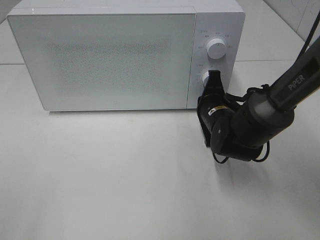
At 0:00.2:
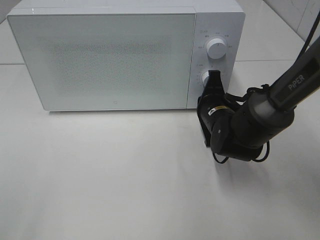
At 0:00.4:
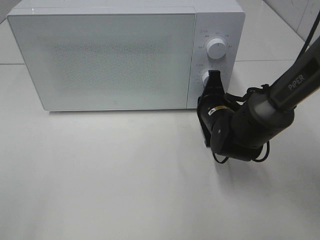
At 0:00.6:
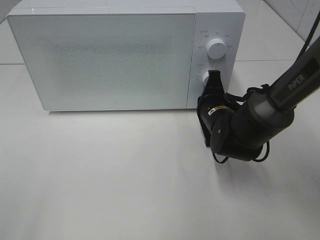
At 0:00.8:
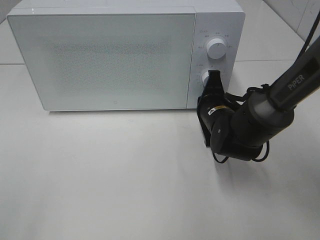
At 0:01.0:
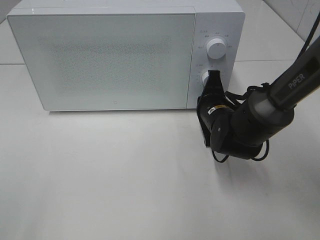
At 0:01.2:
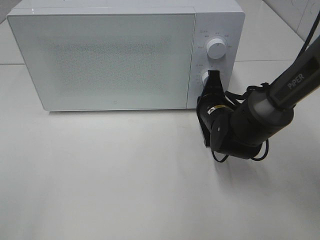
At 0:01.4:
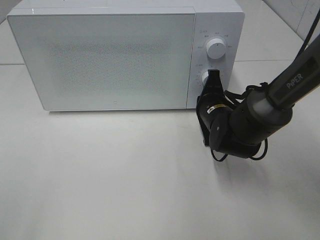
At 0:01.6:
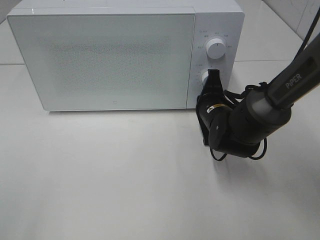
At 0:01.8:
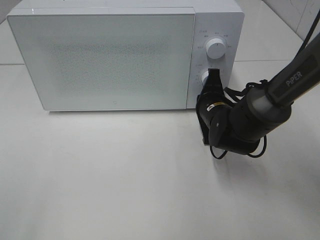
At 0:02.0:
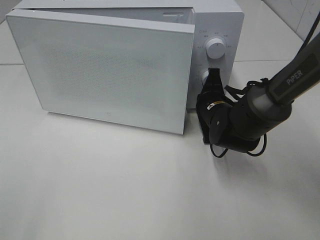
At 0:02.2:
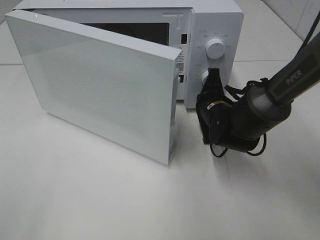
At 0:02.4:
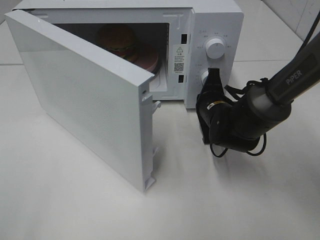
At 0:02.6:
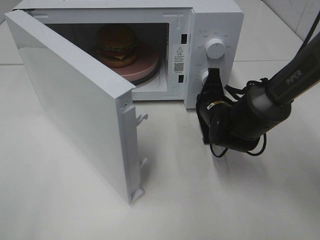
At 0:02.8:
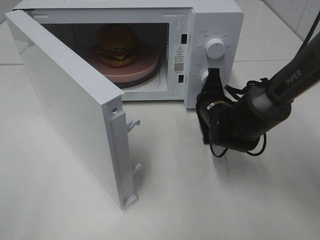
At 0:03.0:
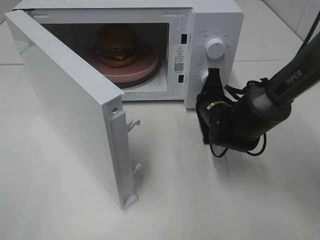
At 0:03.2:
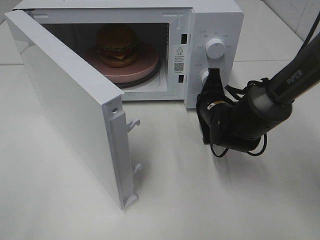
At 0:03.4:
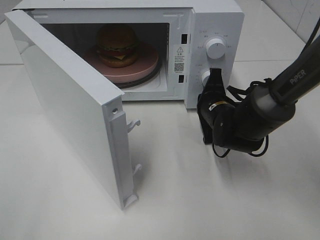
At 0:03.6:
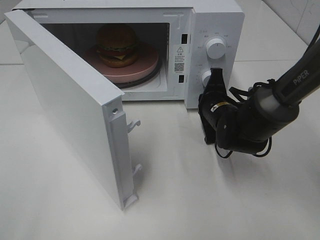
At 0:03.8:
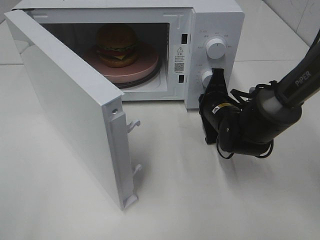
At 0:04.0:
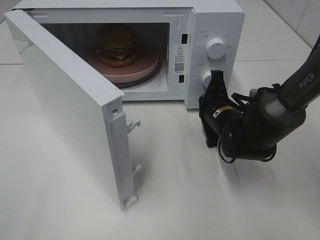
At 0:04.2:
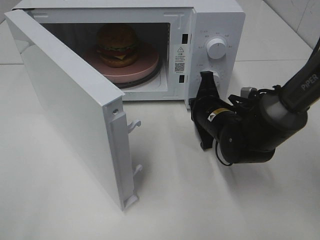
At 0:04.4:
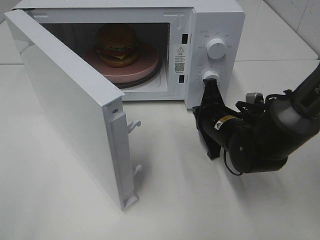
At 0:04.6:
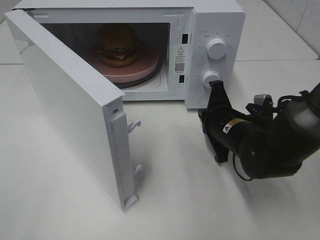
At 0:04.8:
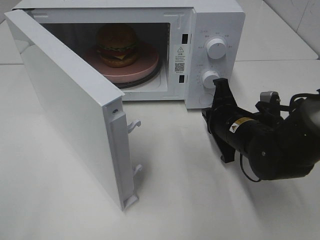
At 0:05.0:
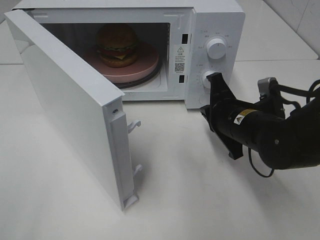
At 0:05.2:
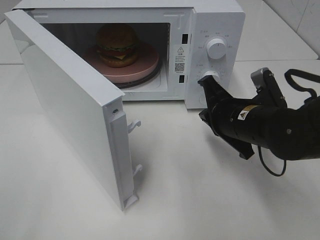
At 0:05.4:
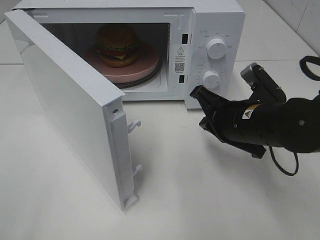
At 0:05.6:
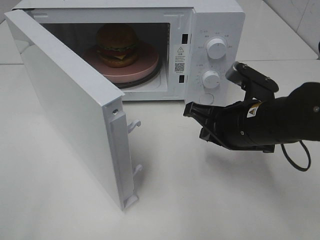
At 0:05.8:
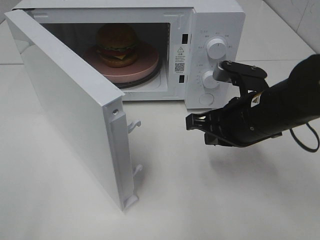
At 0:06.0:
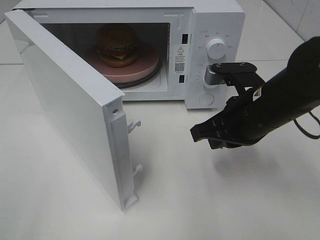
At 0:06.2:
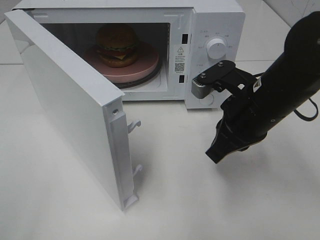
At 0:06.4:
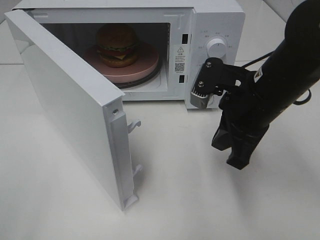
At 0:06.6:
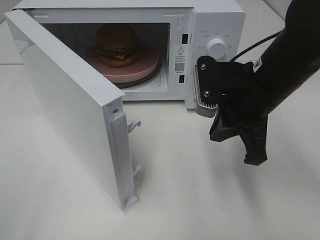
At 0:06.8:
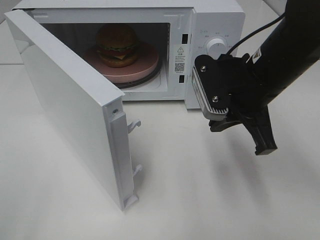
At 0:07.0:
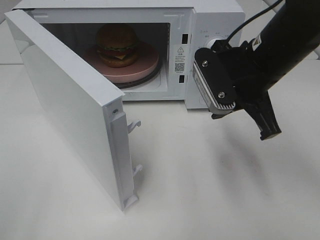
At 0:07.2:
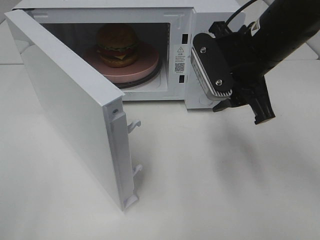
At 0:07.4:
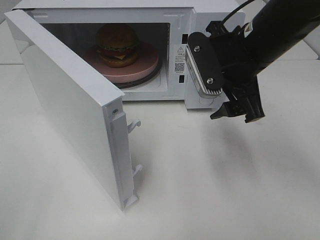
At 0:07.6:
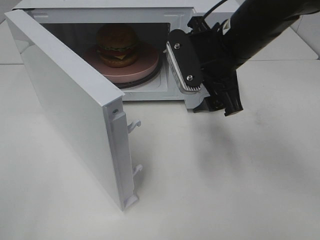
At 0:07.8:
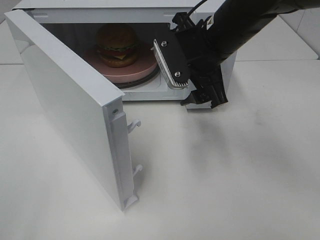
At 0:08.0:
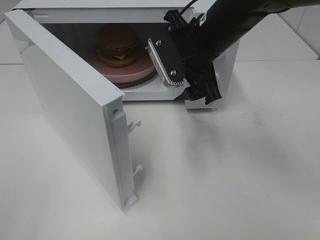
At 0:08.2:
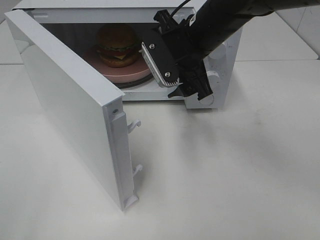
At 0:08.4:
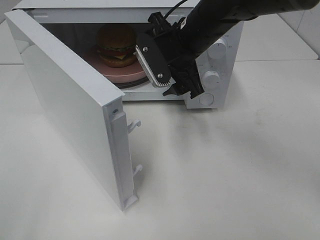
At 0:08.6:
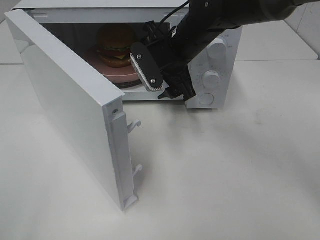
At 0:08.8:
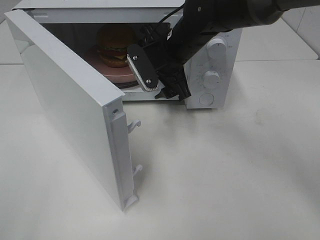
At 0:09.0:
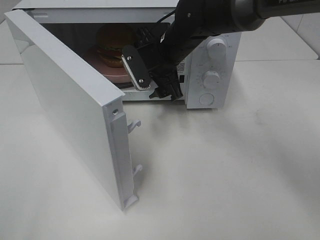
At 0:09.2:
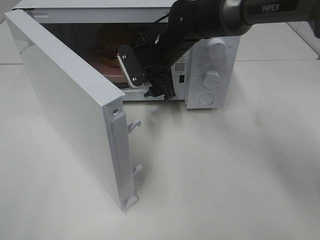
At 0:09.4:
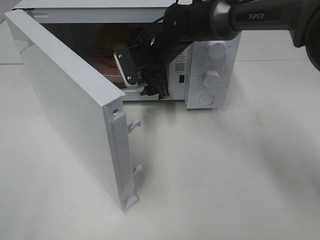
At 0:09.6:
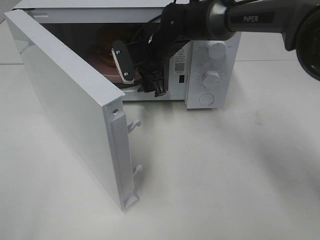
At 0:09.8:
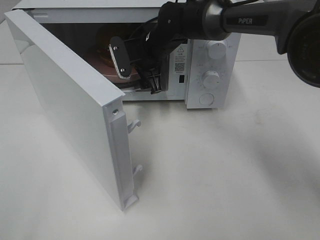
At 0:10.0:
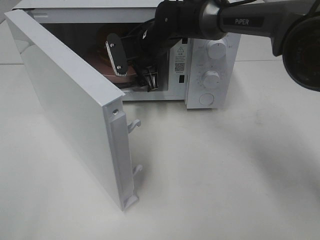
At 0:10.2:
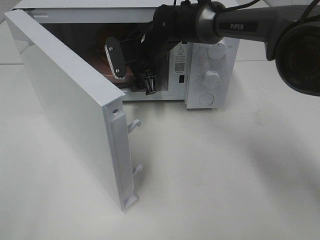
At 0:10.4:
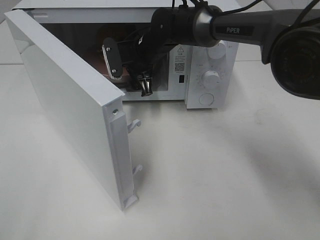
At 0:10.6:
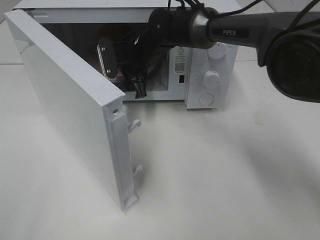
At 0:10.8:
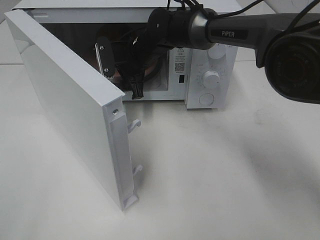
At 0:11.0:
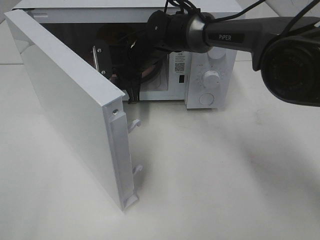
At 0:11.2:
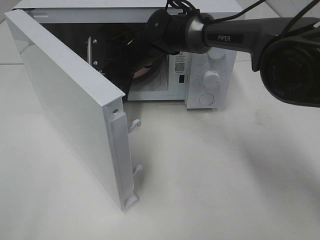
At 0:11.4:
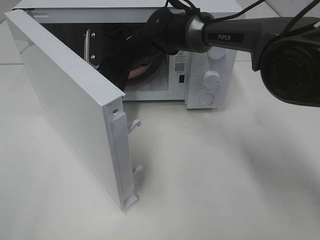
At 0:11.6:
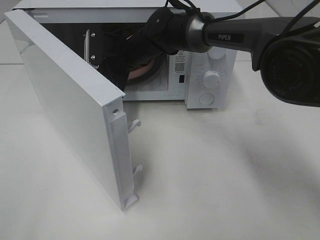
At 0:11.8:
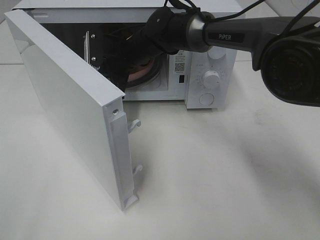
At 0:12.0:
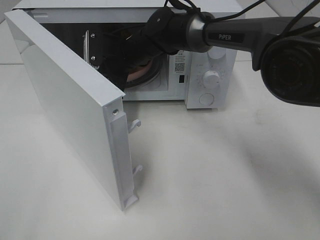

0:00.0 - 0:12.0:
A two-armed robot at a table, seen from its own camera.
Task of the whole recording: Heat the burger.
Step, 0:00.0 - 0:04.0: Right hand: press the switch.
0:00.0 - 0:01.6: Both grippers stay put.
0:03.0 - 0:04.4: There are only small adjustments of the grippers.
0:04.4 - 0:06.0: The right gripper moves upward and backward, roughly 10 cm.
0:06.0 - 0:07.6: The right gripper is displaced upward and forward by some 10 cm, and opens.
0:07.6 - 0:09.0: The right gripper is displaced forward, to the left and downward by about 15 cm.
0:09.0 - 0:10.4: The right gripper ends up roughly 5 cm from where it was.
0:10.4 - 0:12.0: The right gripper closes up.

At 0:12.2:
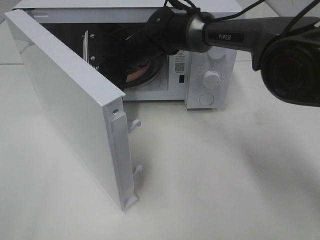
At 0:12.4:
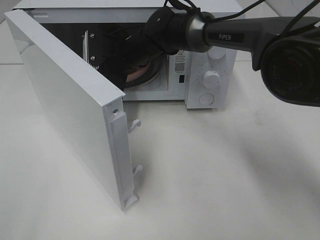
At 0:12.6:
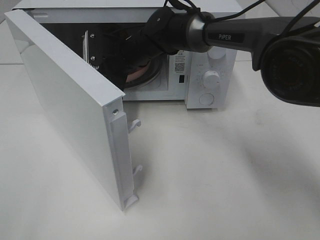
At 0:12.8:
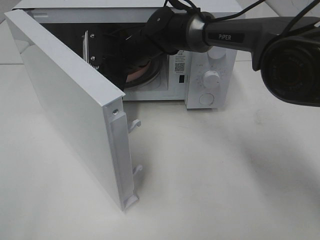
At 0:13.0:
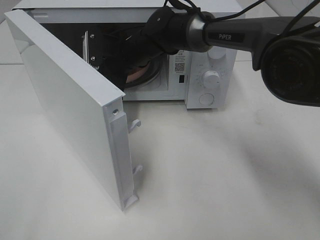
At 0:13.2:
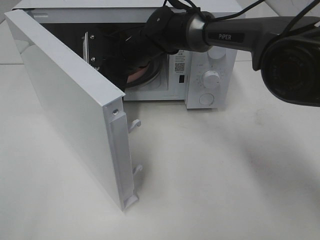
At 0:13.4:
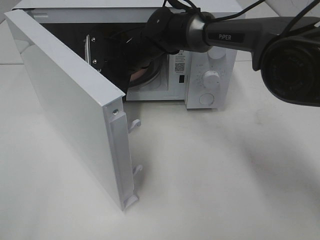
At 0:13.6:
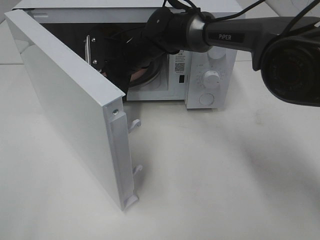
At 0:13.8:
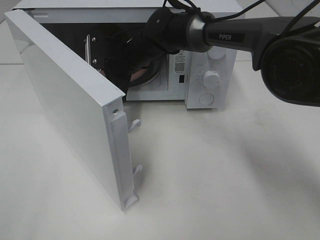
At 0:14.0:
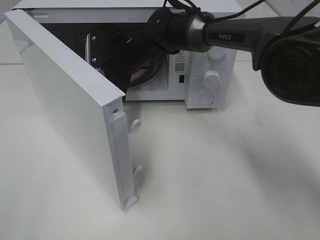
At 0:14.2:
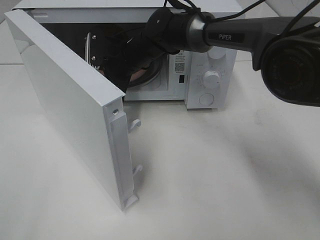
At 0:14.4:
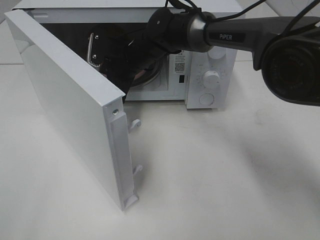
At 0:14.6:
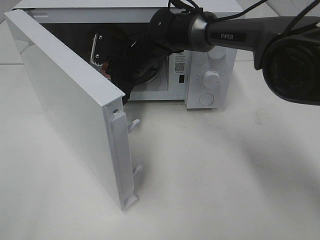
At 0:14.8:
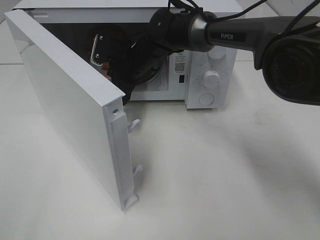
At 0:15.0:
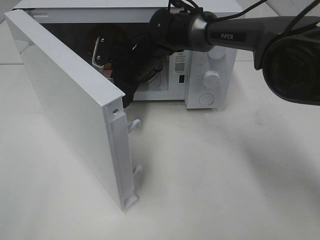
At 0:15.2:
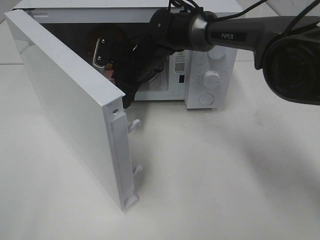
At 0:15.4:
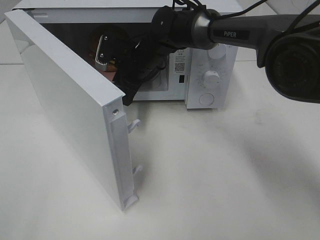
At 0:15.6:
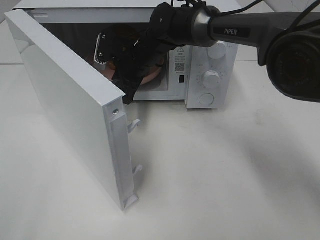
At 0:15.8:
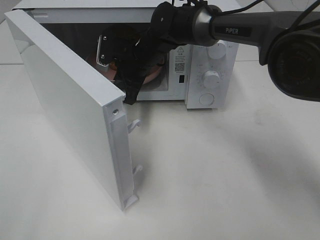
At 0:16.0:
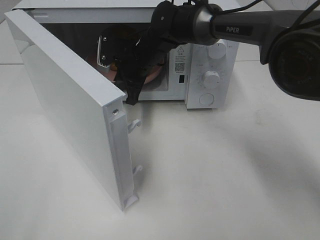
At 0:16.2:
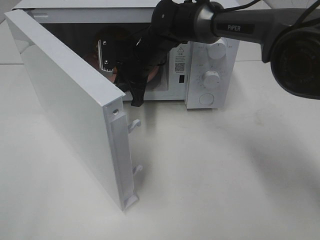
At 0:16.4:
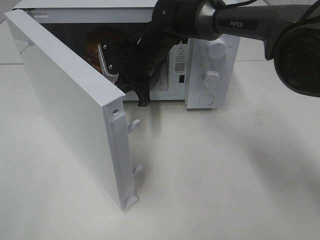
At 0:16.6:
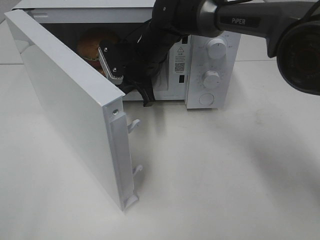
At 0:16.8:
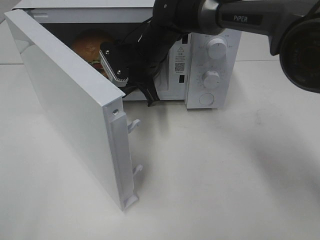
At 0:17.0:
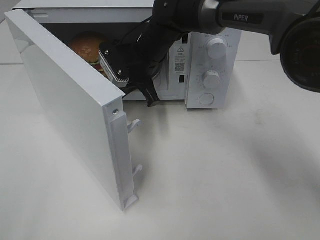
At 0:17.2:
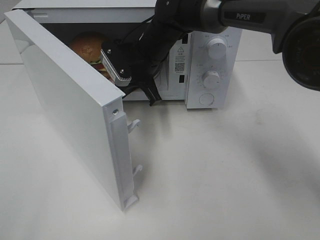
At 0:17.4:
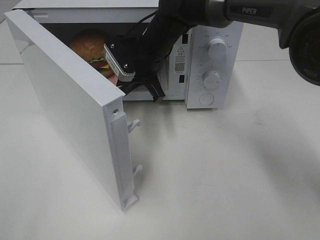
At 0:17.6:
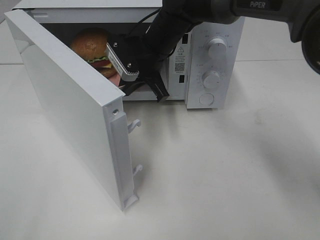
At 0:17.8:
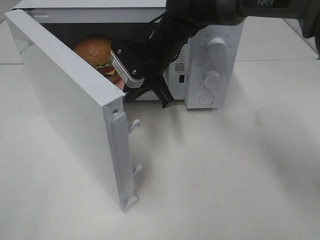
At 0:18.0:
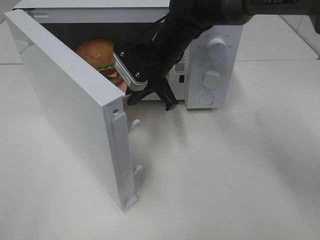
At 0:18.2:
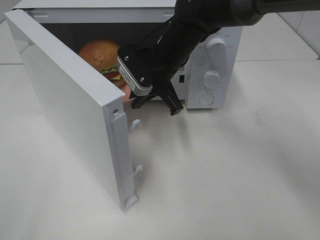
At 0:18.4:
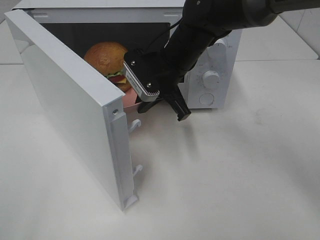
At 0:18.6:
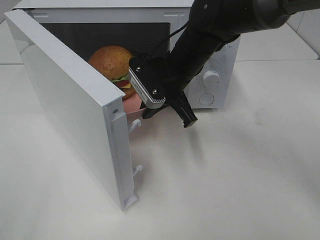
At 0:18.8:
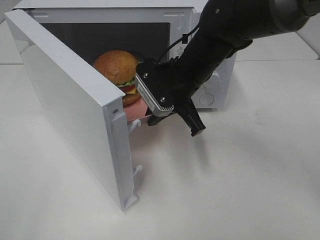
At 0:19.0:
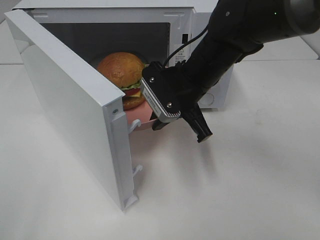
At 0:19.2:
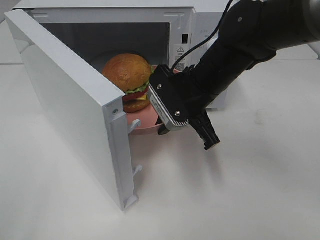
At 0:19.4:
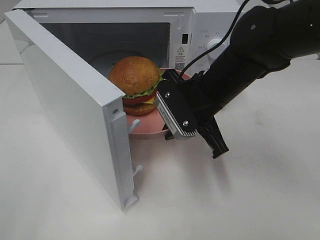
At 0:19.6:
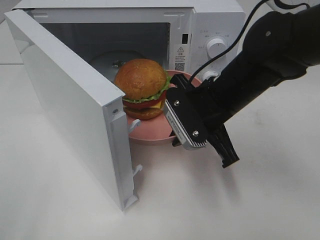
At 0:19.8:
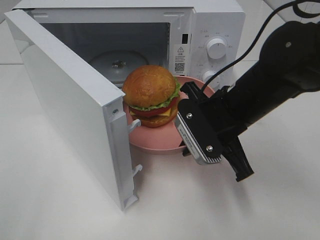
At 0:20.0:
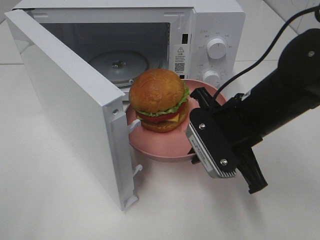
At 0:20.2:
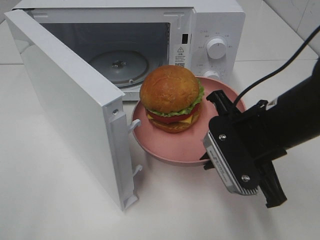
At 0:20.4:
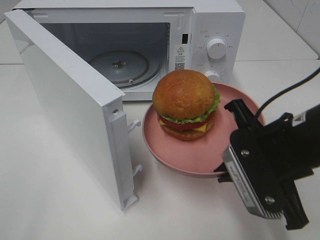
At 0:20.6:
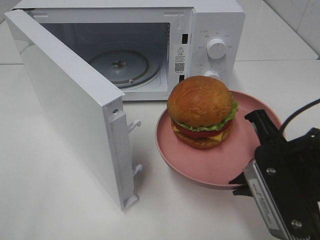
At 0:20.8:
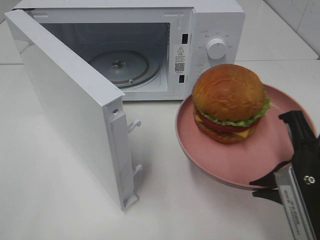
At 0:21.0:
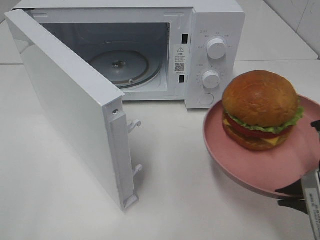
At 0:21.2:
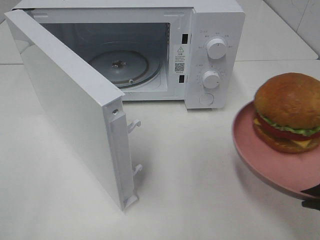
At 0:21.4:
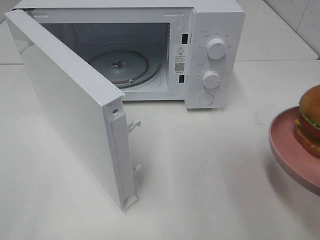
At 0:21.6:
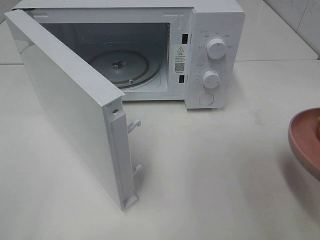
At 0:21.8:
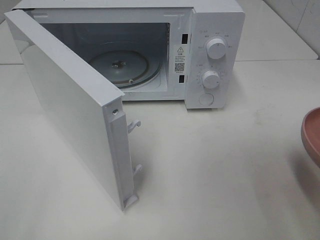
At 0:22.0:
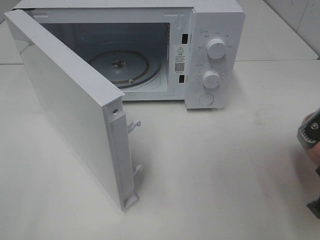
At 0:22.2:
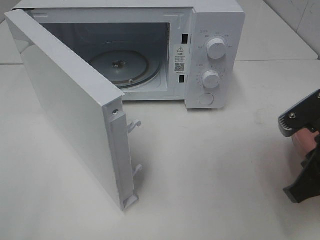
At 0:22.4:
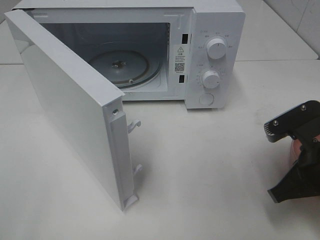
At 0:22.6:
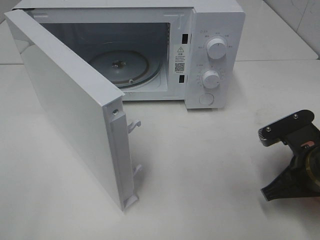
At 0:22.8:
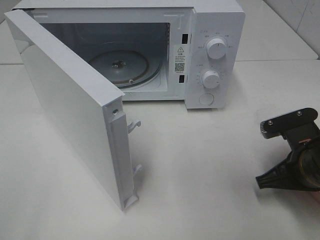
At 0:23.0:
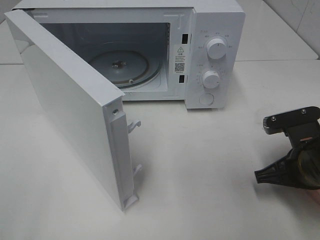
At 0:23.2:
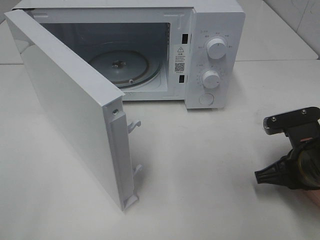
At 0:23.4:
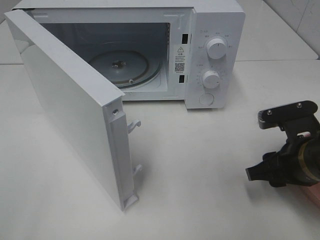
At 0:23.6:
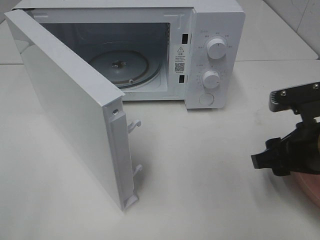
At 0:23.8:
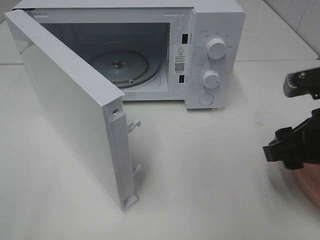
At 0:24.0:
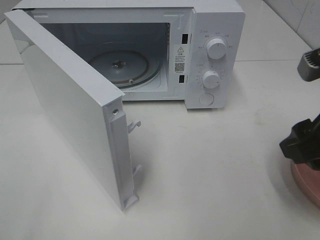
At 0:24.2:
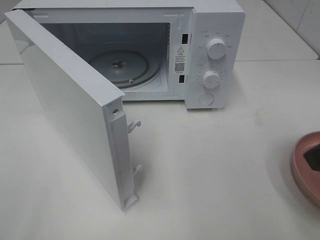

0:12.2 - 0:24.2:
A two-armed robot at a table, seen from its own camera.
Task of the whole recording: Heat the burger.
Step, 0:12.2 - 0:15.4: Right hand: grab the plate with the hamburger.
Step, 0:15.6 - 0:23.0: Right hand: place the plate on the table.
0:13.8 - 0:15.2: The grippers move only a little.
0:15.2 - 0:16.6: The right gripper closes its fingers.
0:16.6 - 0:18.2: The right gripper ends up approximately 5 cm from where it was.
0:18.2 - 0:19.8: The right gripper moves backward and to the right, approximately 15 cm.
0:19.8 - 0:21.2: The right gripper shifts some 20 cm backward and to the right.
0:21.2 - 0:22.6: The right gripper is displaced downward and forward by approximately 15 cm.
0:22.6 - 0:24.2: The right gripper moves upward, some 20 cm, and opens.
